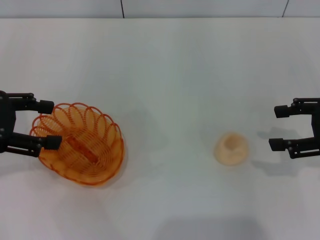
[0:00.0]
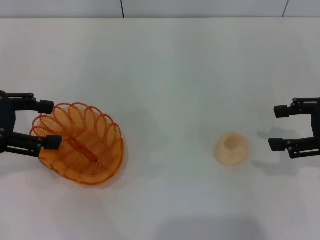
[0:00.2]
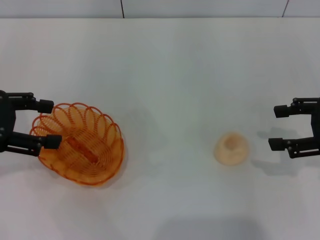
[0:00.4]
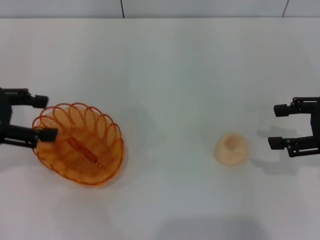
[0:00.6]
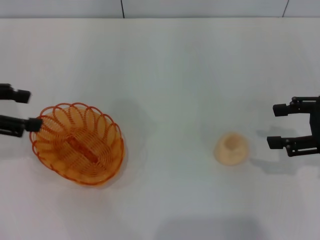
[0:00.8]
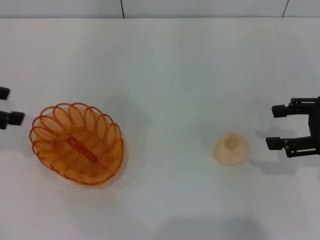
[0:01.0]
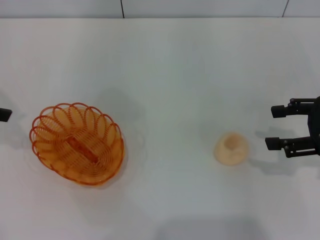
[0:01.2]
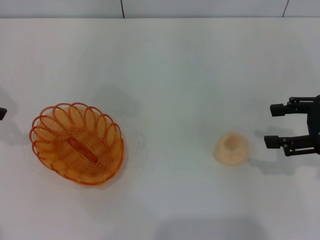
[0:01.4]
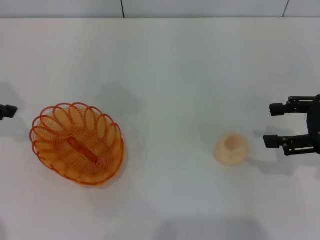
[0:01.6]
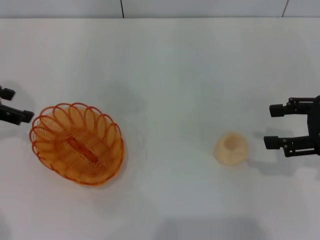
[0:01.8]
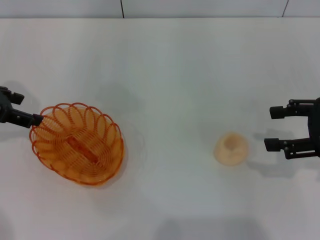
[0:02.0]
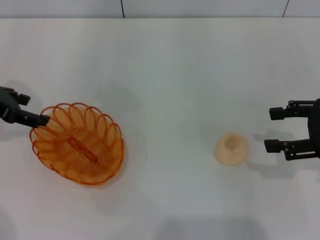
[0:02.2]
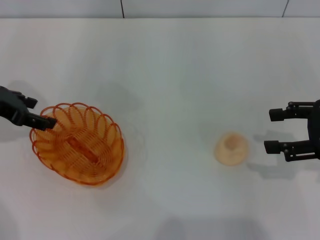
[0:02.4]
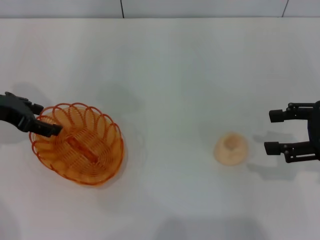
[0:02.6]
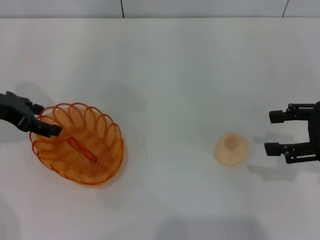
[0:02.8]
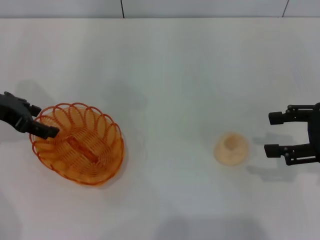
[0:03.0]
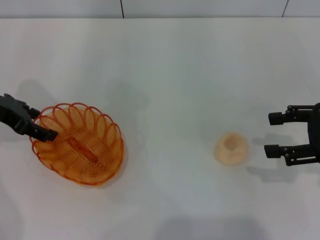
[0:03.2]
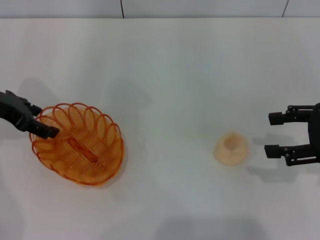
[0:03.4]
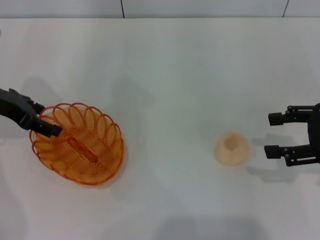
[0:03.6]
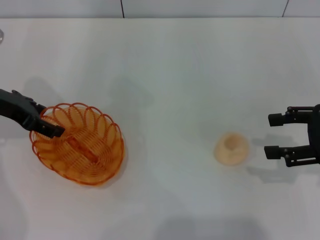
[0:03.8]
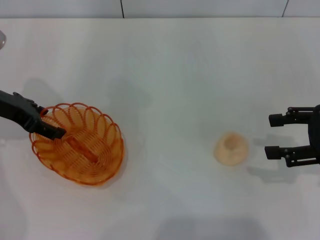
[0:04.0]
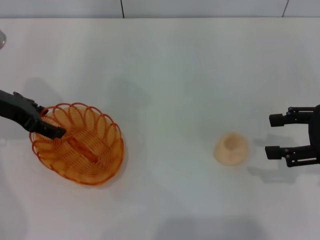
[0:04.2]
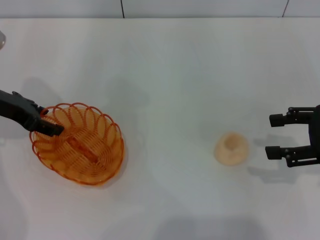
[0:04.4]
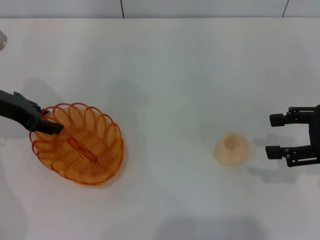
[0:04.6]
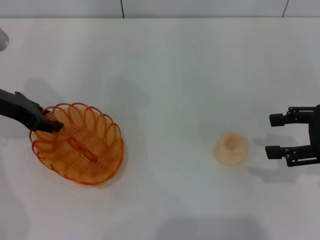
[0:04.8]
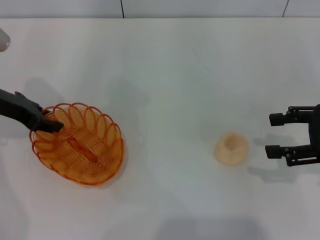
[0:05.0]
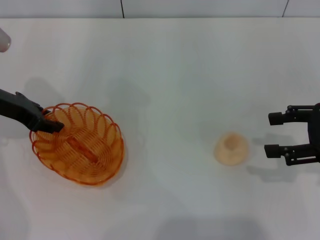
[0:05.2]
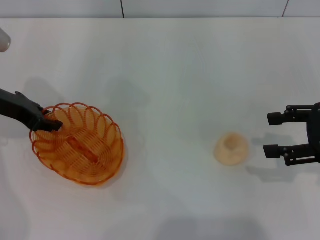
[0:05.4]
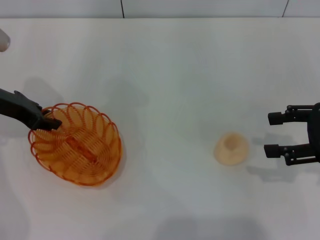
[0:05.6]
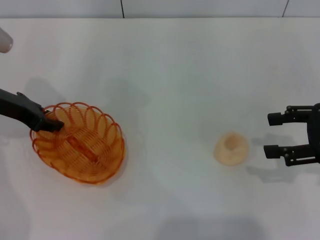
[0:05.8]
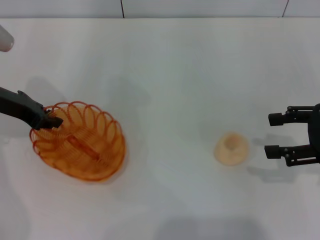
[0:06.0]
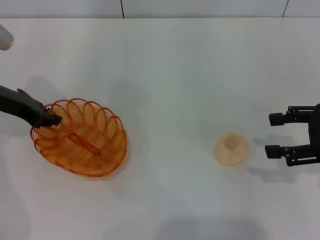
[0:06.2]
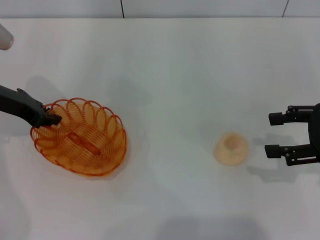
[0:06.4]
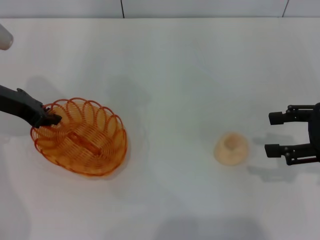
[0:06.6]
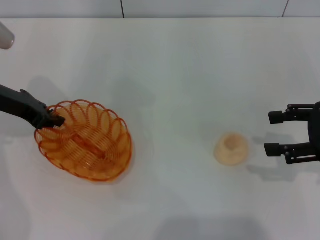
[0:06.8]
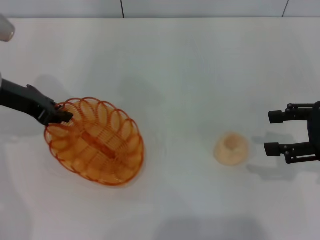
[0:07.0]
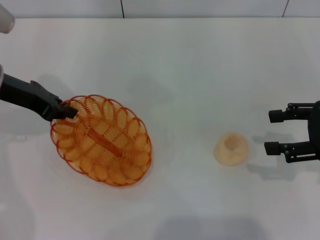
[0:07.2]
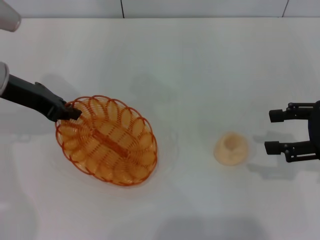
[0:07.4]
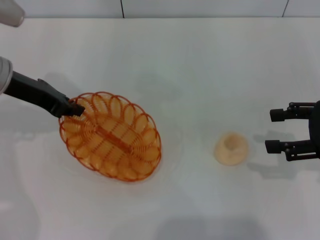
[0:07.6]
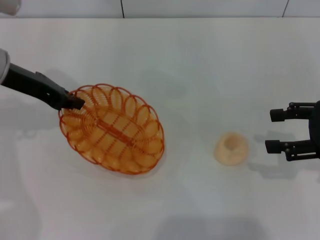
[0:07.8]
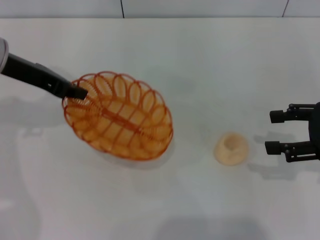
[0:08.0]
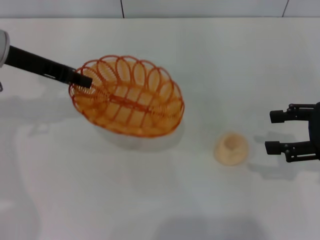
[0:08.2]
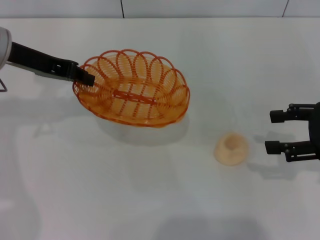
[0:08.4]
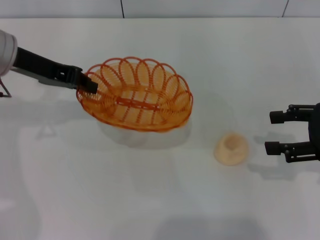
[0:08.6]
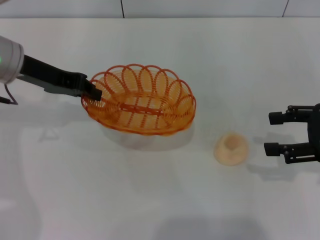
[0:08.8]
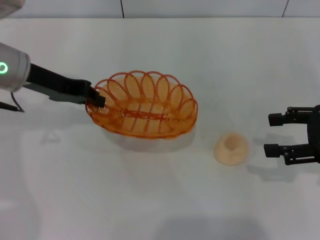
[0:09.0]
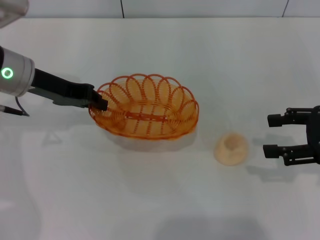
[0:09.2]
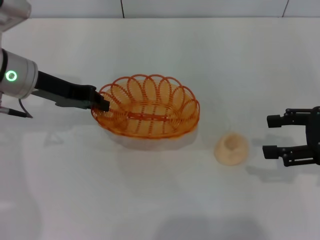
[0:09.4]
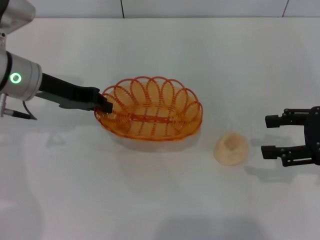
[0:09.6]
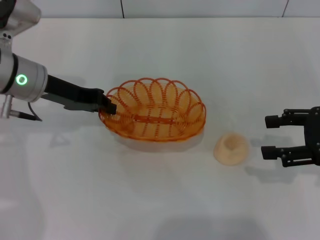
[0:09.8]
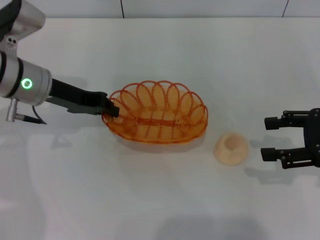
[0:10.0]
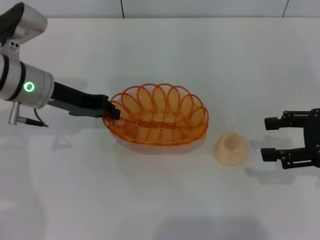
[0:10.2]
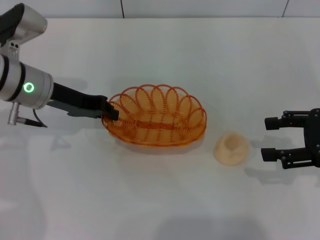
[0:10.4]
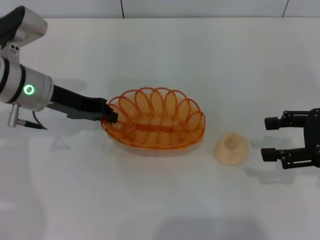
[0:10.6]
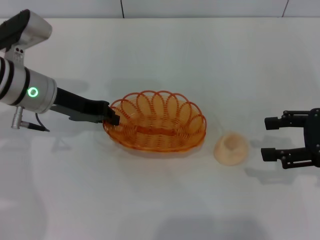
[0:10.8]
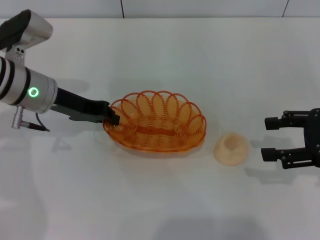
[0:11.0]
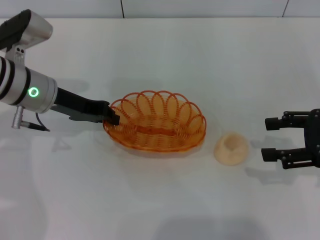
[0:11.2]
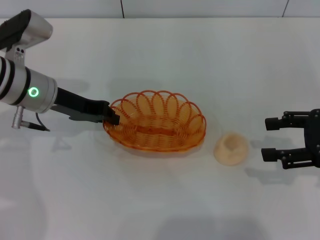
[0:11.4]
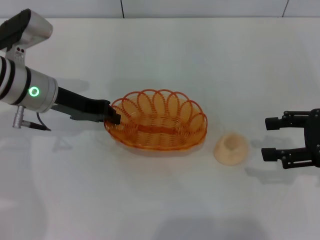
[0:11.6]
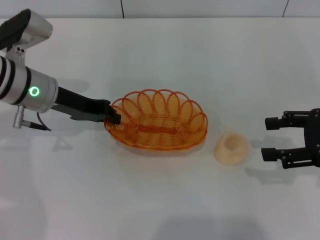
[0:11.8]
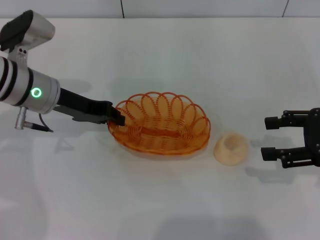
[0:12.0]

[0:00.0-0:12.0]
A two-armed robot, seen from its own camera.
Step, 0:00.0 to 0:07.8: Pick up the basket with the left gripper.
0:00.0 to 0:01.6: The left gripper is displaced forward by some 5 cm.
0:01.6 to 0:03.0: The left gripper is displaced downward and to the right by some 10 cm.
0:03.0 to 0:04.4: There are only small adjustments of the grippers.
0:04.4 to 0:06.0: The left gripper closes.
0:06.0 to 0:07.6: The grippers make only small movements.
0:09.0 to 0:10.4: The grippers make only small movements.
0:10.4 to 0:12.0: The two grippers keep their place.

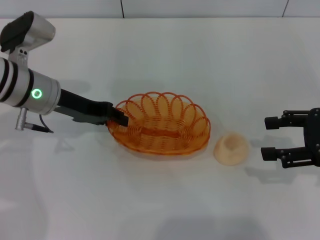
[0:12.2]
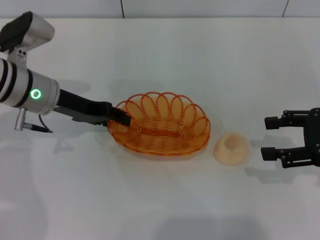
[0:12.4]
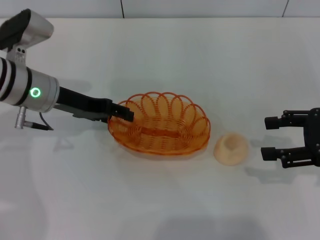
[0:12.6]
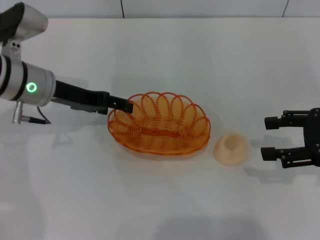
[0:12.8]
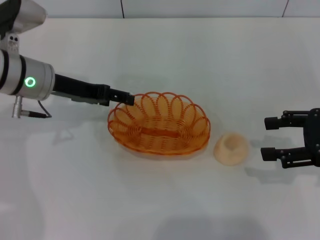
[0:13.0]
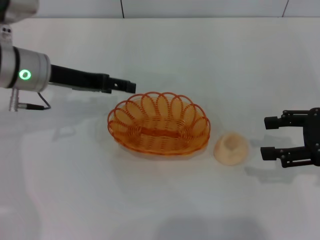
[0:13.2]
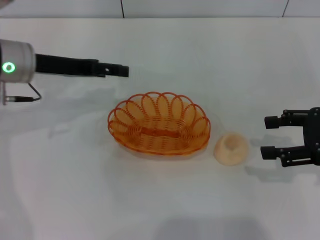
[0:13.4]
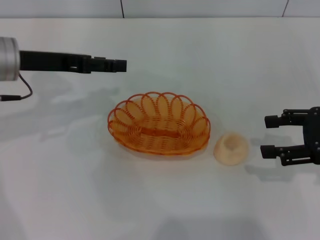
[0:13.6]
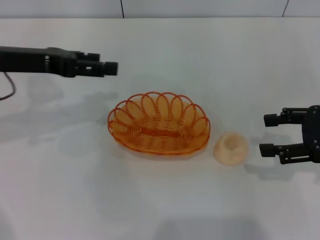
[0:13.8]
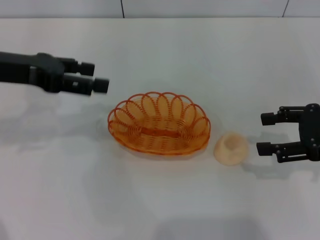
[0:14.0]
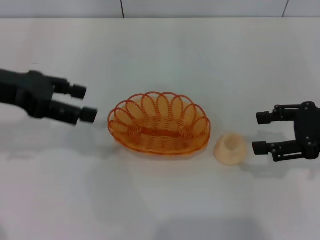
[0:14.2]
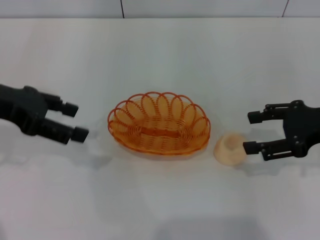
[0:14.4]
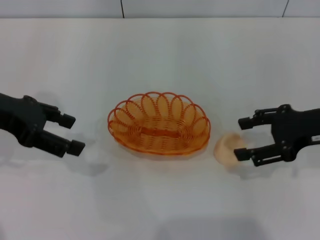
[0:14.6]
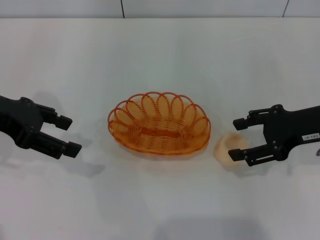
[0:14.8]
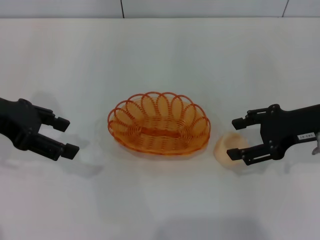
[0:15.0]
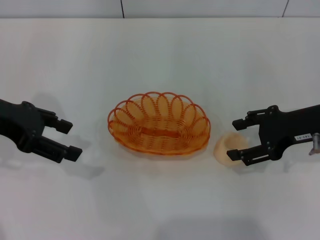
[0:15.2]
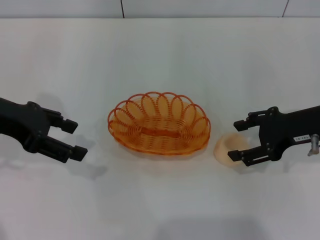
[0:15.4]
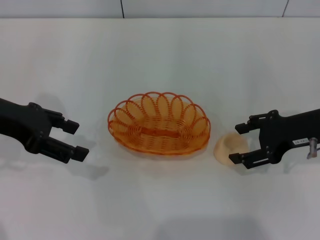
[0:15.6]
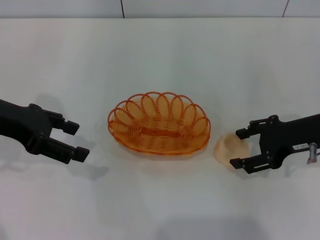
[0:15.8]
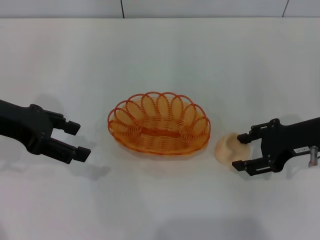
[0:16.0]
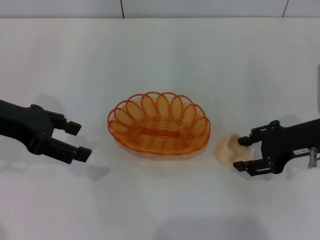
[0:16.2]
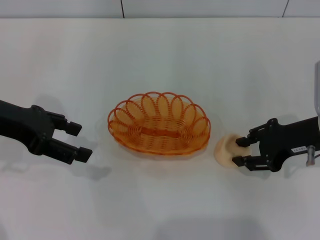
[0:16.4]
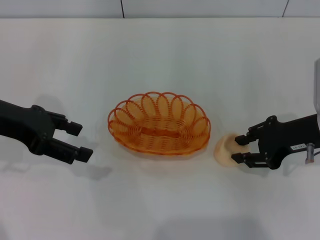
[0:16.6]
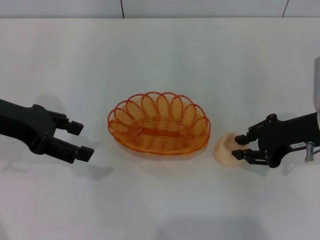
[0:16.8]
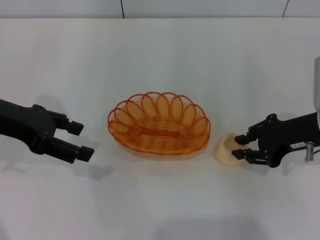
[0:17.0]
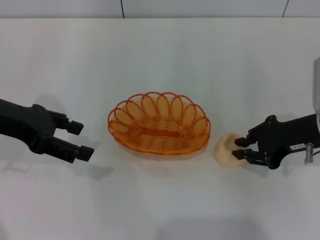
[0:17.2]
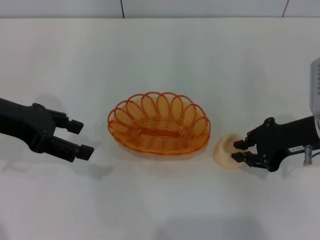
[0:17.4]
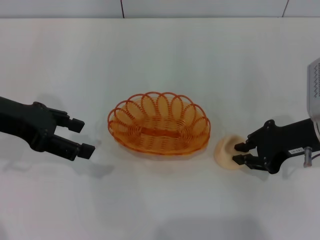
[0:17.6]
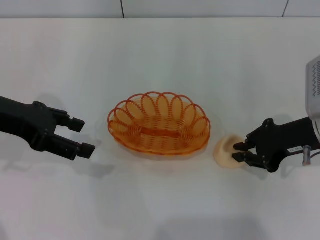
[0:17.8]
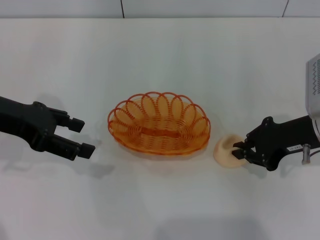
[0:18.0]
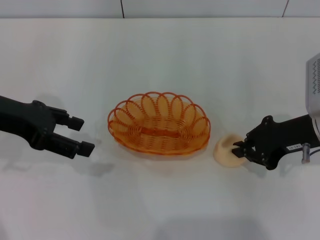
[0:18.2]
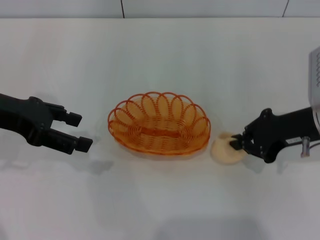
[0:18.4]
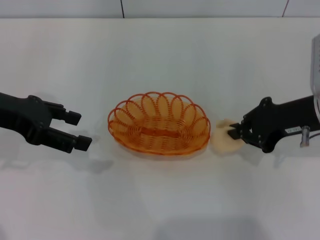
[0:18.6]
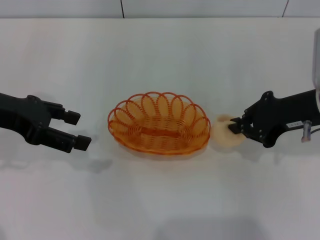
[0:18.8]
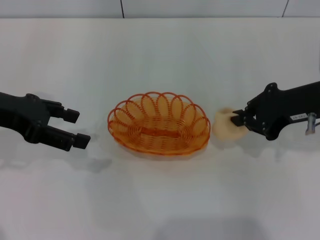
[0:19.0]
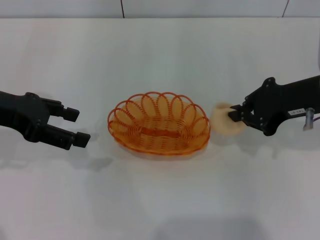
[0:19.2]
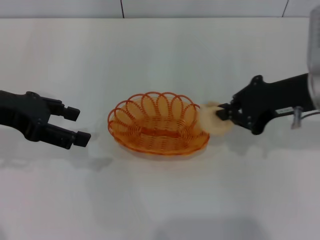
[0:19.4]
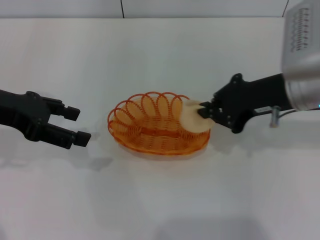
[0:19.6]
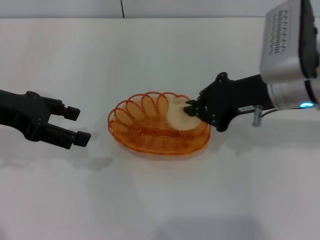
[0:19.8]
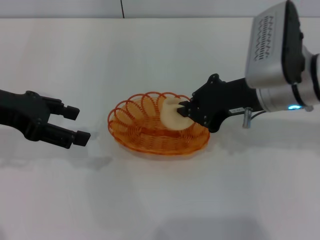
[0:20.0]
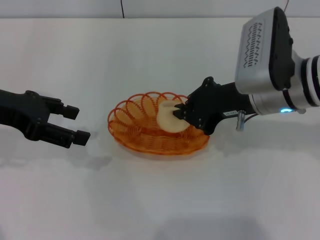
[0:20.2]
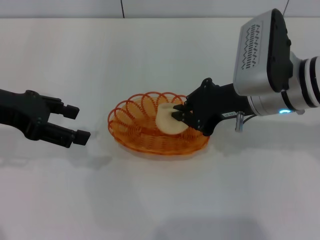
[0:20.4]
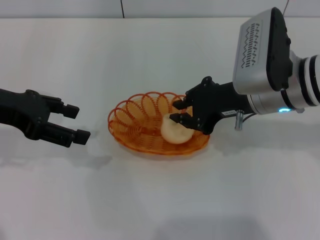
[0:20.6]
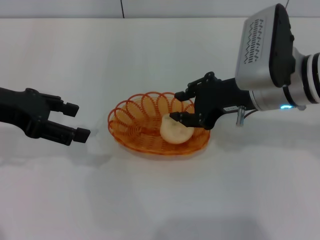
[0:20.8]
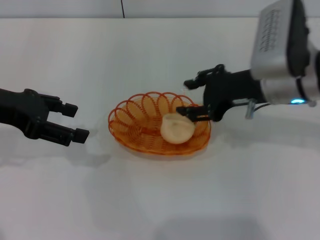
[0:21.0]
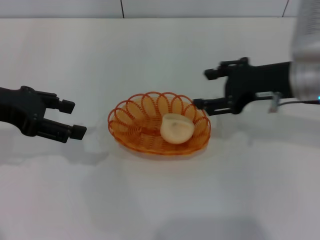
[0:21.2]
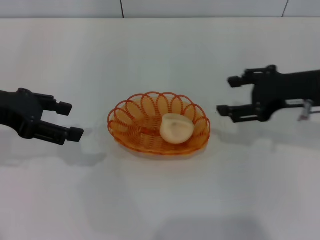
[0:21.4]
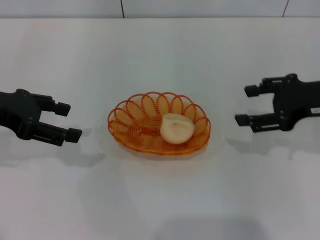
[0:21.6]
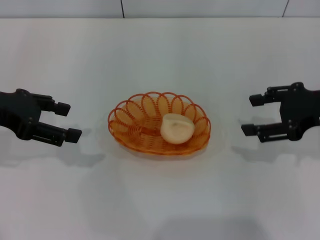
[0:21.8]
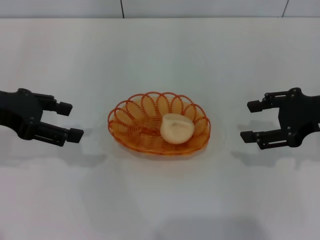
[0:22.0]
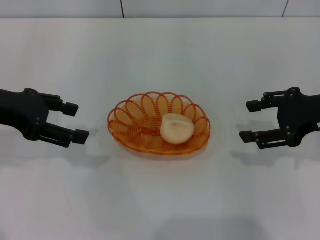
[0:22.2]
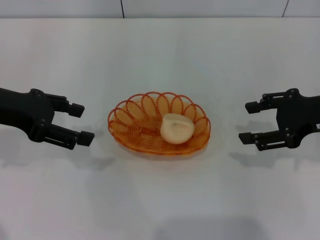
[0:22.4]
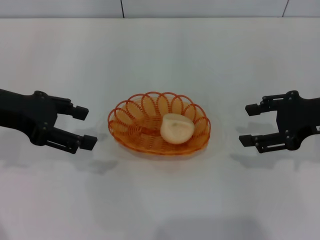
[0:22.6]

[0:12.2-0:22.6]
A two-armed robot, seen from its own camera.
Step, 0:13.2 to 0:19.2: Pick up the egg yolk pastry with the right gripper.
Step, 0:19.4 to 0:21.0: Place the egg yolk pastry into the basket with the right gripper.
0:12.2 to 0:13.6: The left gripper is displaced upward by roughly 5 cm, and opens its fingers.
0:13.6 to 0:15.2: The left gripper shifts some 5 cm backward. The right gripper is displaced to the left by some 5 cm.
0:15.2 to 0:16.6: The right gripper closes its fingers.
0:16.6 to 0:18.2: The right gripper closes up.
0:18.2 to 0:19.6: The right gripper heads upward, covering approximately 5 cm.
0:19.6 to 0:21.2: The right gripper opens up.
0:21.2 to 0:22.6: The right gripper heads to the right, covering some 5 cm.
